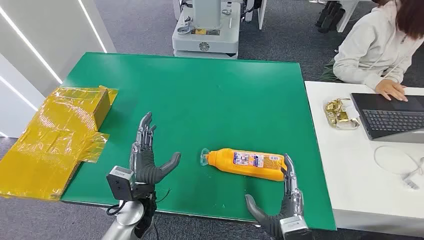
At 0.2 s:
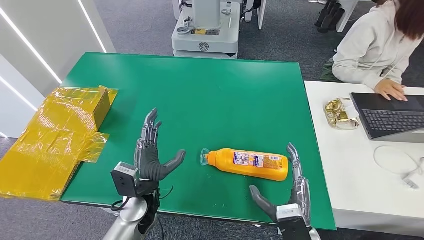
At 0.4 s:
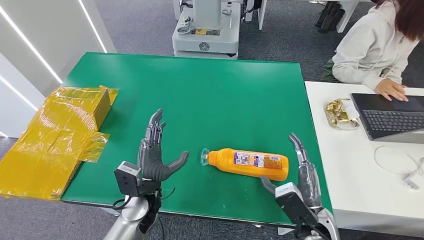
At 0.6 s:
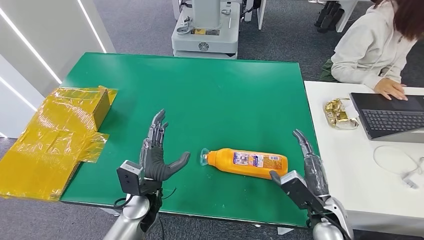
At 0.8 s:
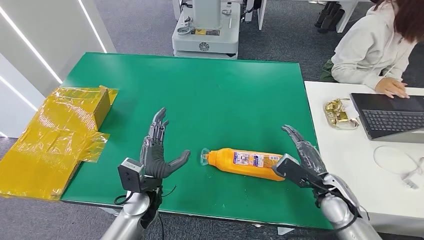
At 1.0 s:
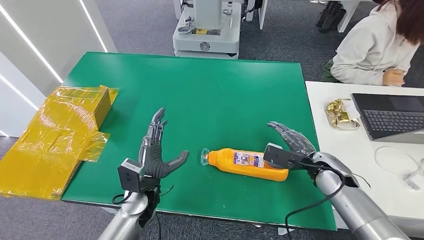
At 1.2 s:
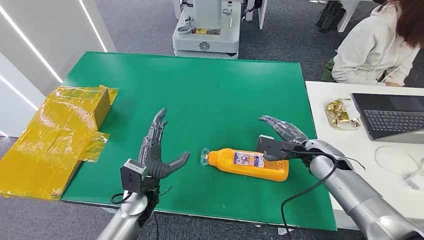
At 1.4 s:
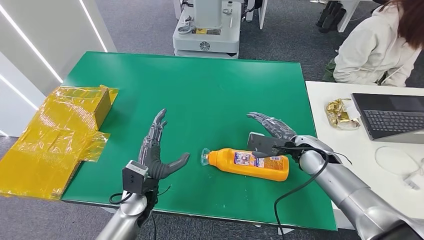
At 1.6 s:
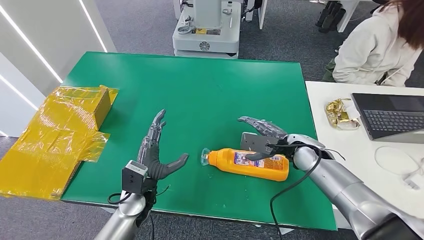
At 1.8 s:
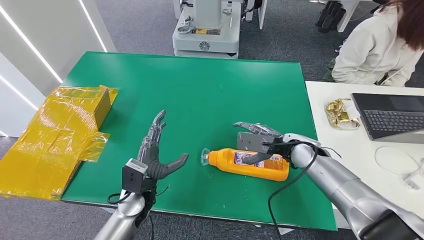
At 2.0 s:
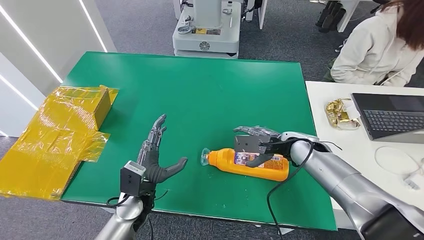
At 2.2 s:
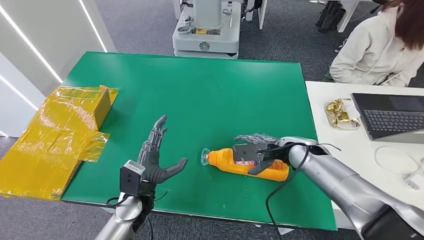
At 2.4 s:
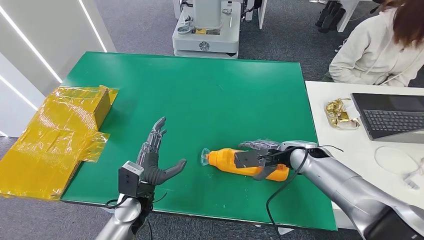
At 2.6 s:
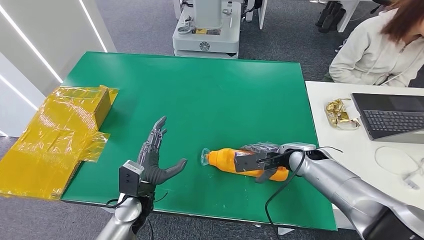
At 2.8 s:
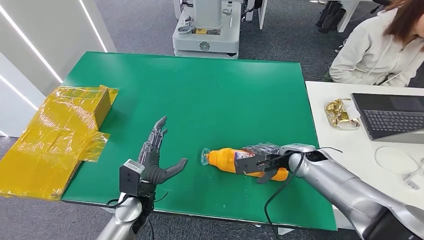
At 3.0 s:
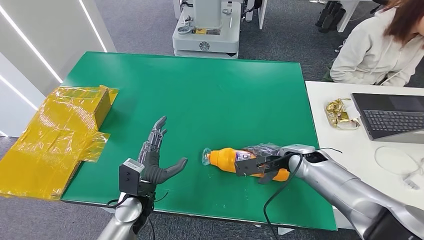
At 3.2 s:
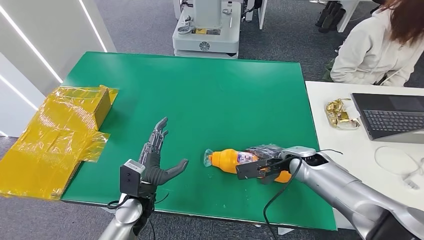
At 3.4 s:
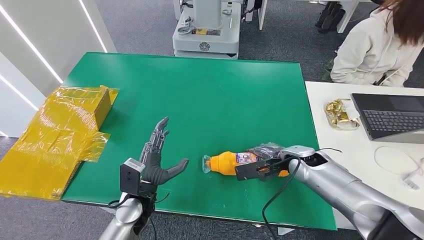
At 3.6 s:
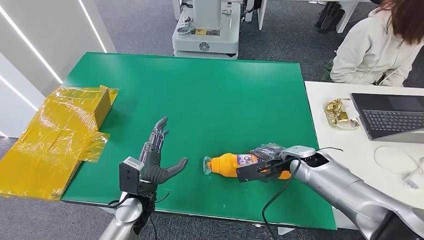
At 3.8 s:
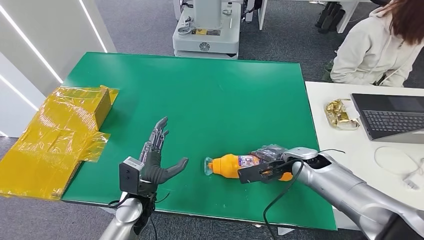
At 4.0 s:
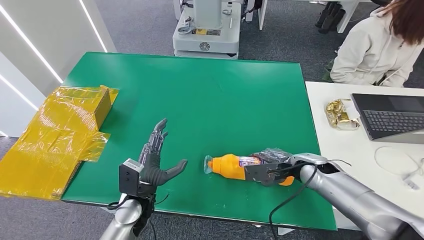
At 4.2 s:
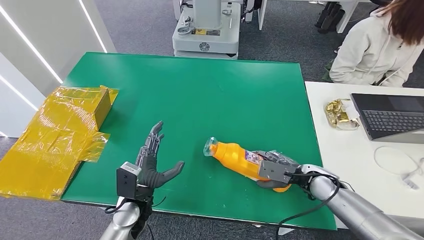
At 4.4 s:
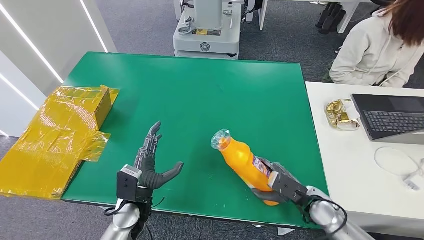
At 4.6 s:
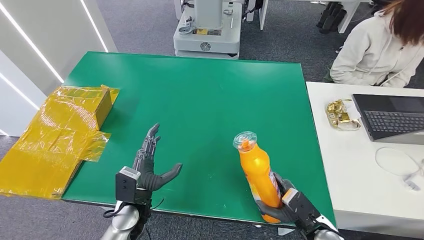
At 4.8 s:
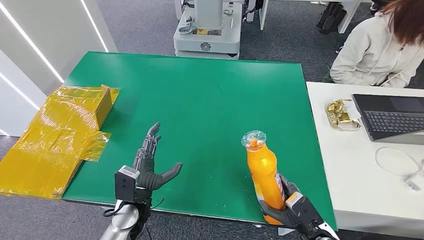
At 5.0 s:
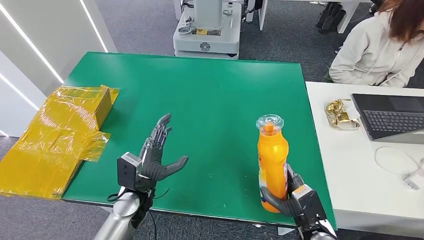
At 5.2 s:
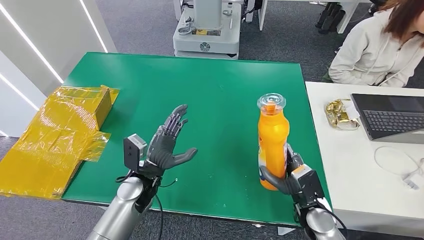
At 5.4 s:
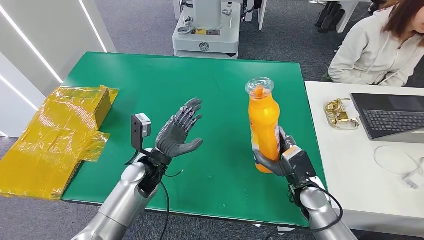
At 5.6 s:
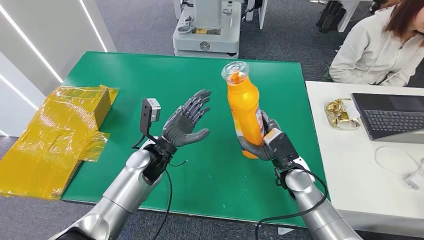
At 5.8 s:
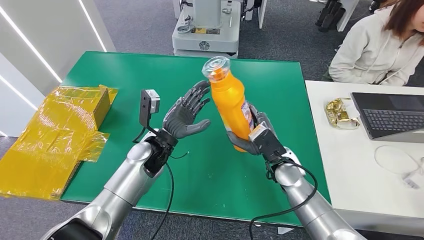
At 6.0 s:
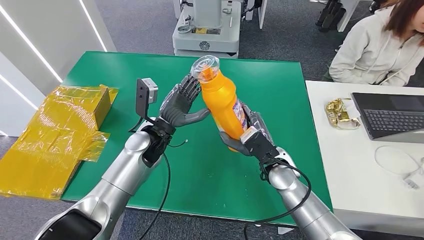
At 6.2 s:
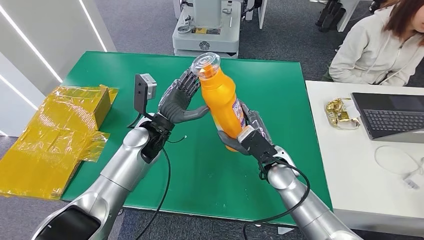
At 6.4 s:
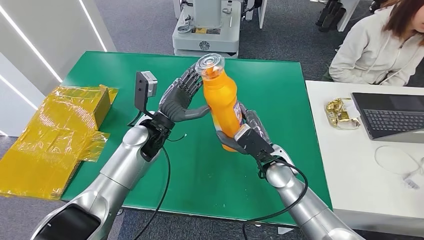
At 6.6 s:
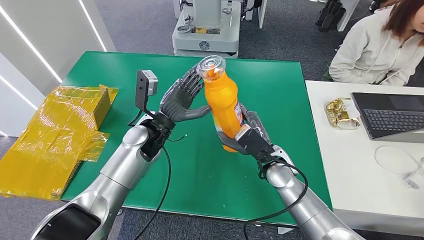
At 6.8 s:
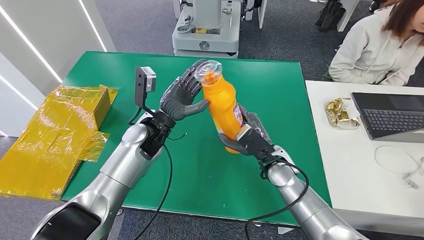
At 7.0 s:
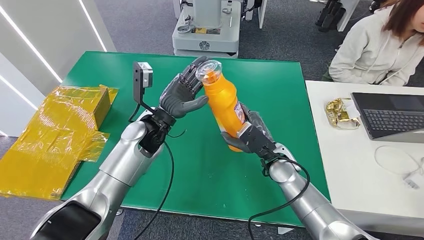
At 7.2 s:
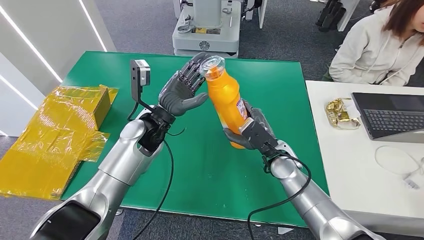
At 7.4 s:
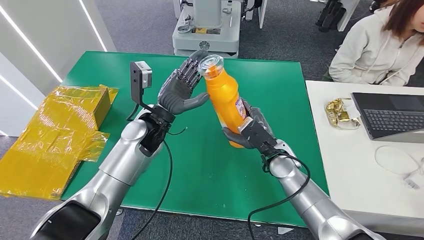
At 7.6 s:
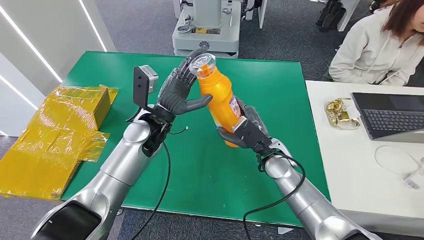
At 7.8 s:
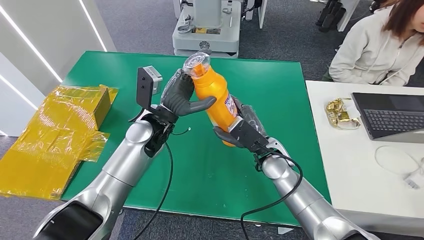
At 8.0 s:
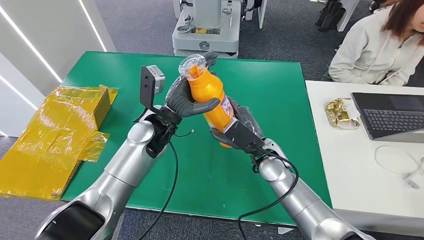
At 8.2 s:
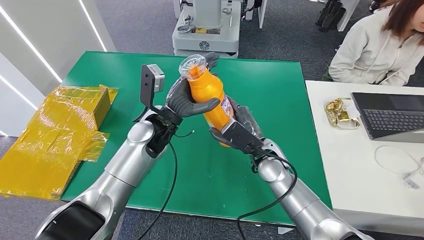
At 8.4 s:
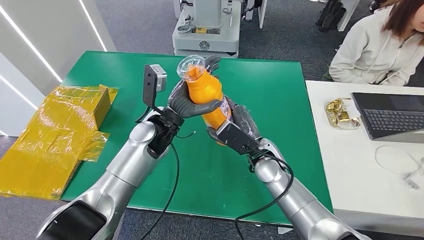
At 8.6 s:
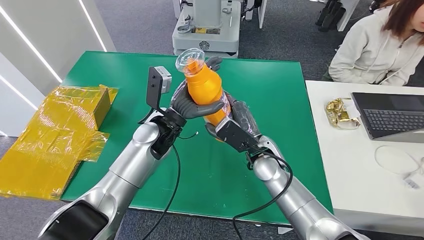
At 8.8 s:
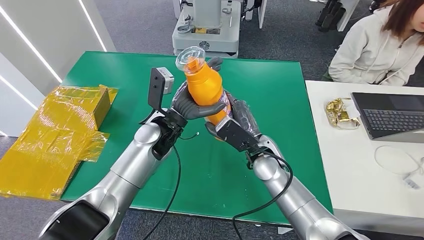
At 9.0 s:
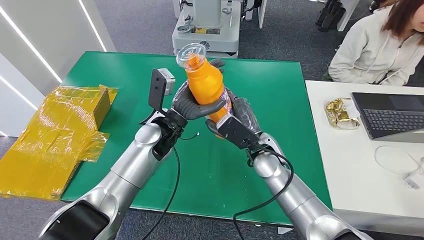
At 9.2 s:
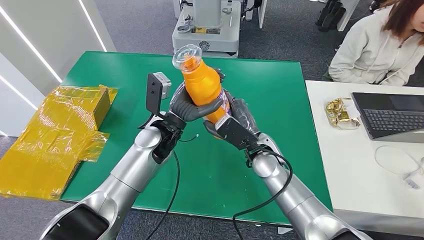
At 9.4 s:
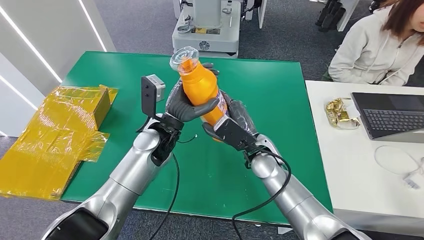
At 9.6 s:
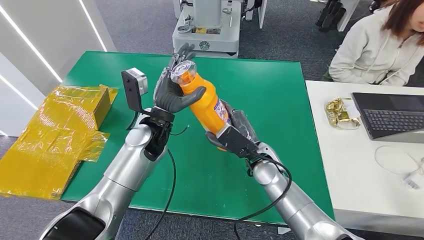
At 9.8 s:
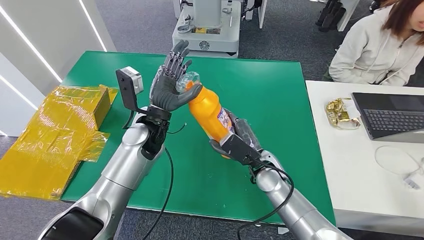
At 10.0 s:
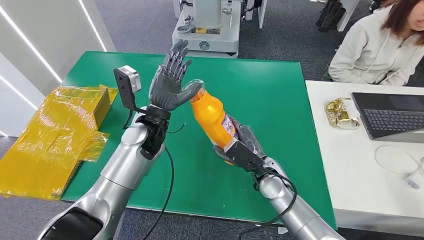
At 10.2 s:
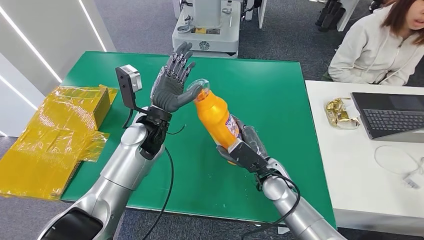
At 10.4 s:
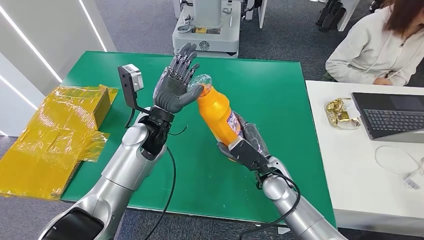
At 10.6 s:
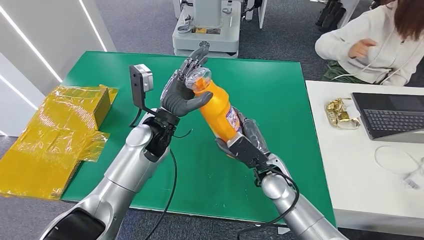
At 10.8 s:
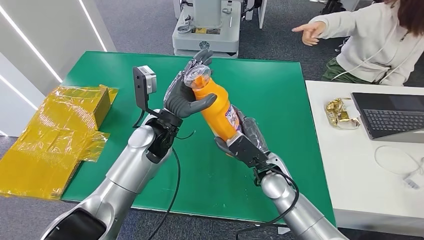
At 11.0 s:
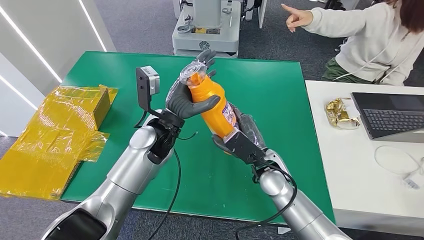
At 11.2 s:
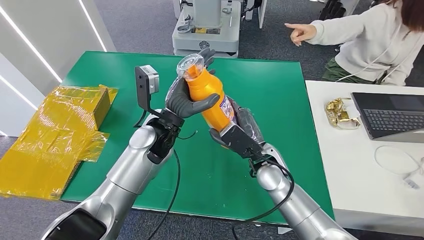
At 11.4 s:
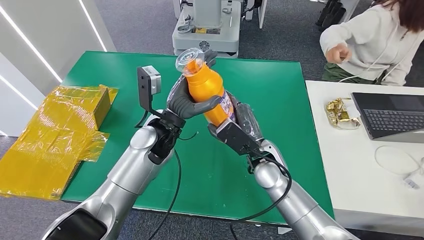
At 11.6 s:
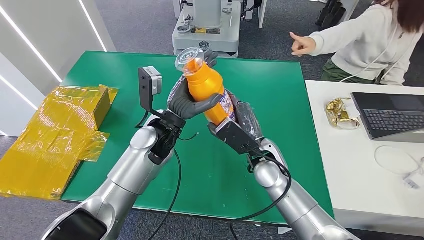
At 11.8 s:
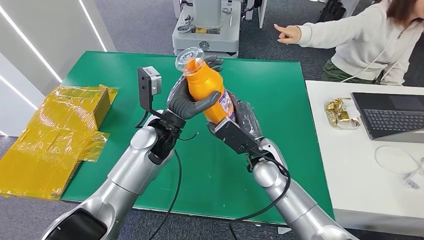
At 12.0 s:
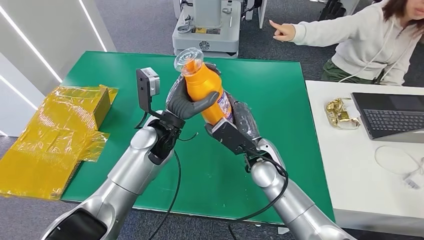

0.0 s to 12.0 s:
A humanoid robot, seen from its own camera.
Step, 0.0 to 5.4 s: Pick up the bottle from the table.
3.0 to 4.4 s: The right hand heads backward, downward and to the right, covering approximately 15 cm.
6.0 to 9.0 s: There are only small adjustments of the hands.
9.0 to 10.4 s: The right hand is displaced downward by approximately 5 cm.
10.4 to 12.0 s: The right hand travels upward by about 5 cm.

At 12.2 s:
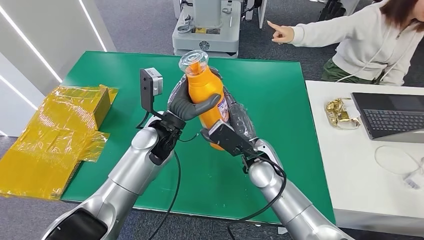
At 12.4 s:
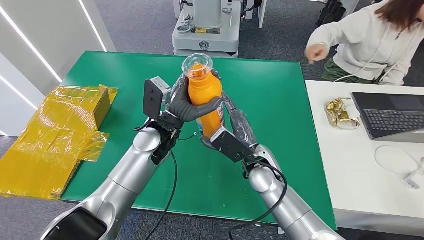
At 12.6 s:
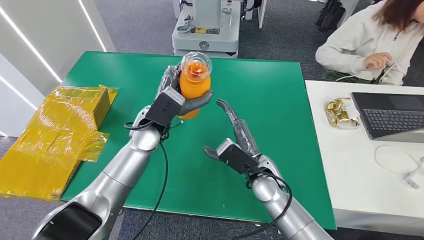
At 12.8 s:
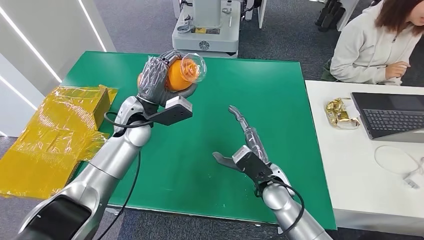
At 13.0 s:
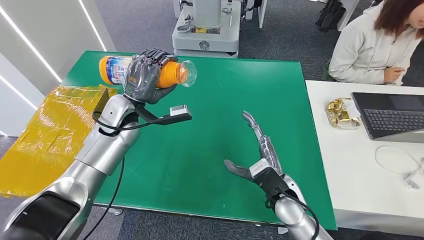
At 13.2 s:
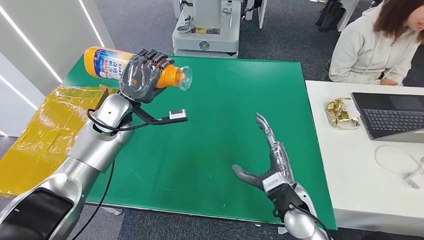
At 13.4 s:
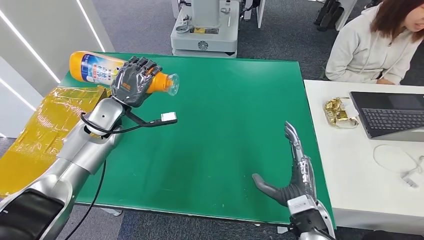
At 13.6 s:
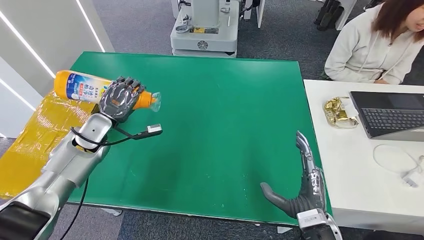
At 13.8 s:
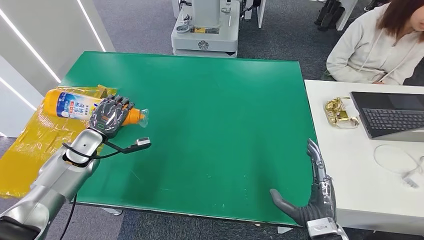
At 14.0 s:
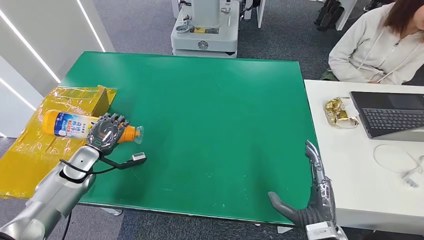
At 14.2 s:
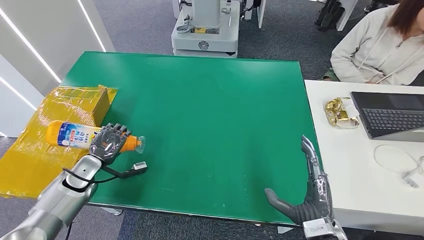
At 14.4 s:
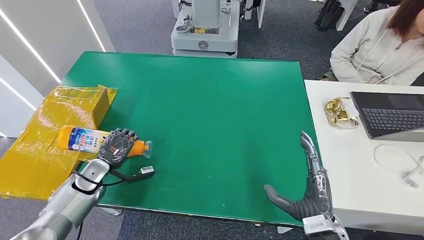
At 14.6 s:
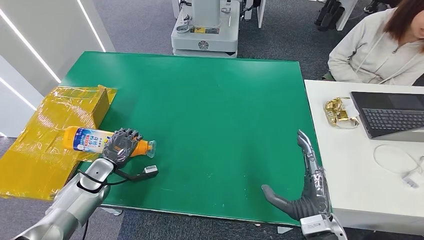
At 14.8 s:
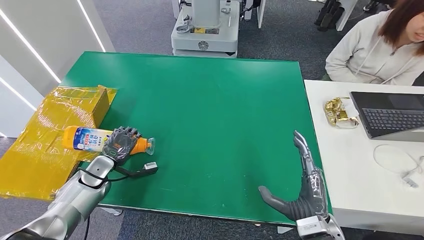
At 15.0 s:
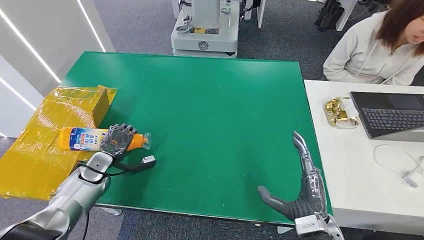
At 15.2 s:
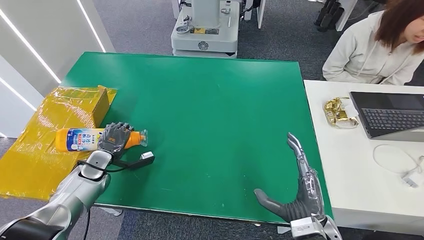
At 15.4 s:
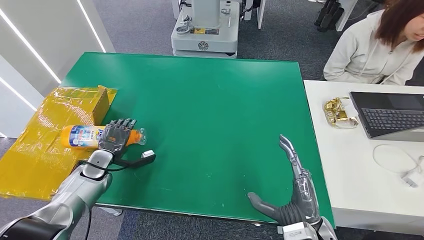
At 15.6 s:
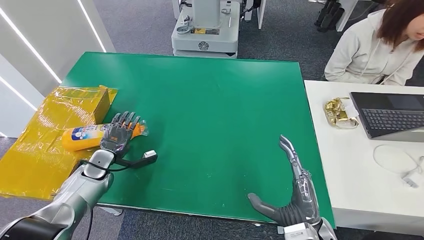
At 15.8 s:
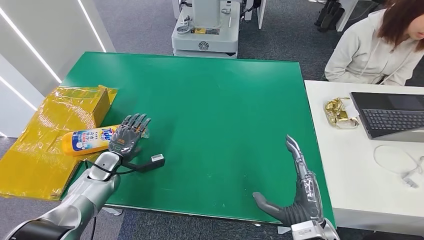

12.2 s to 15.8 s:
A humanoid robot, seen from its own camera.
Step, 12.2 to 15.8 s: Turn the bottle to the front side.
14.0 to 15.8 s: The left hand ends up about 5 cm from where it was.

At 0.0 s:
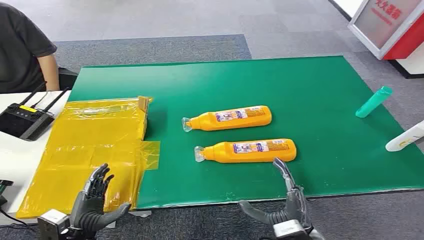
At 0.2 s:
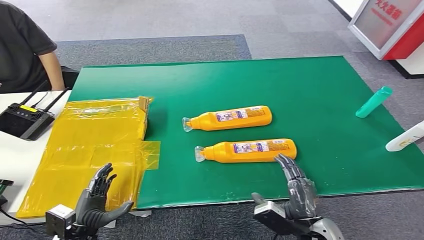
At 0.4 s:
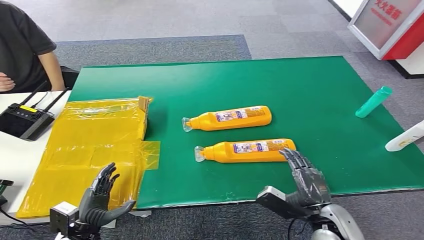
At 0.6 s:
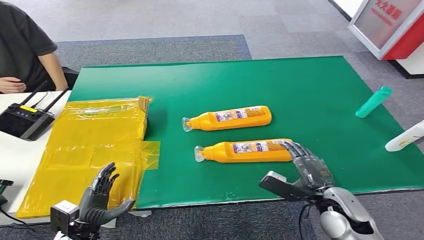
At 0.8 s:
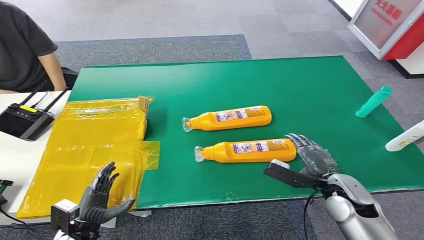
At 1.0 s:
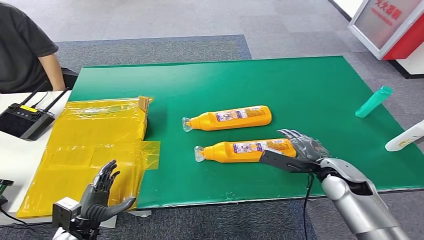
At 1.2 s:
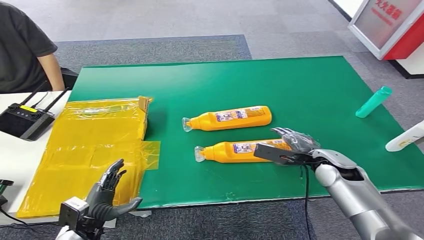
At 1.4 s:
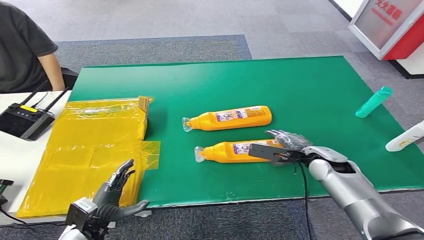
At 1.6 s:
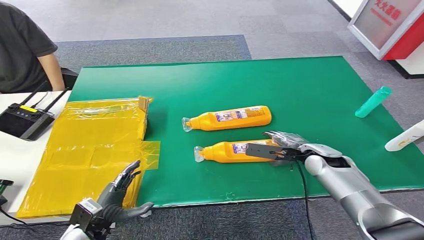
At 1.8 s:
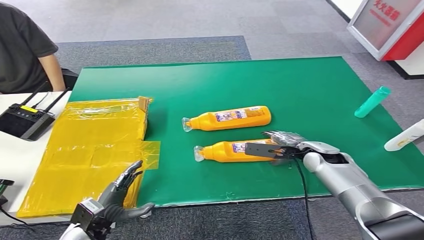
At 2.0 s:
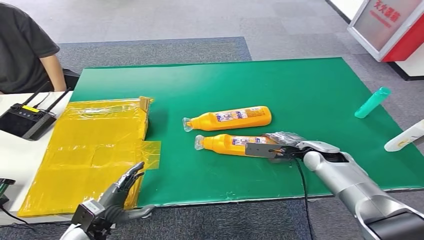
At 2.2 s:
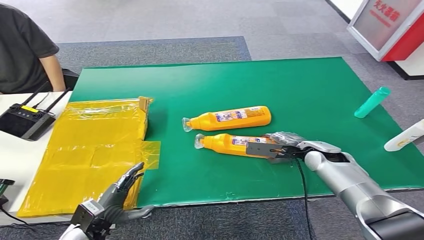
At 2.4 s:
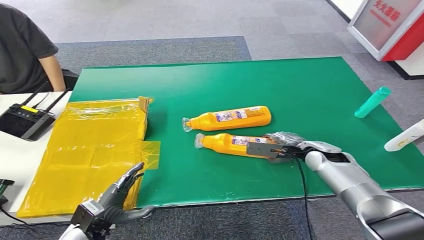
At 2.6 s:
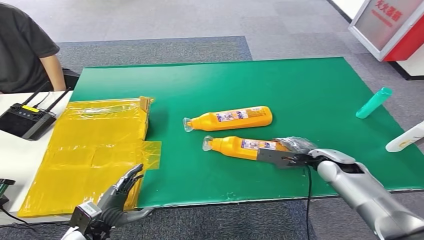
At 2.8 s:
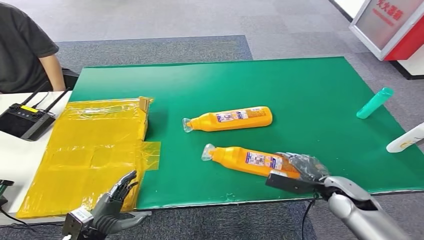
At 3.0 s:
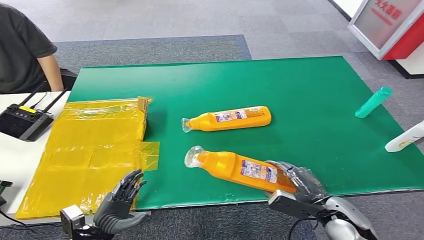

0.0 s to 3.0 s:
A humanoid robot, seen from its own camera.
1.6 to 3.0 s: The right hand heads backward, covering approximately 15 cm.
